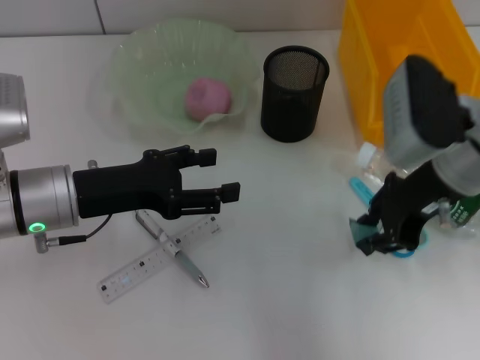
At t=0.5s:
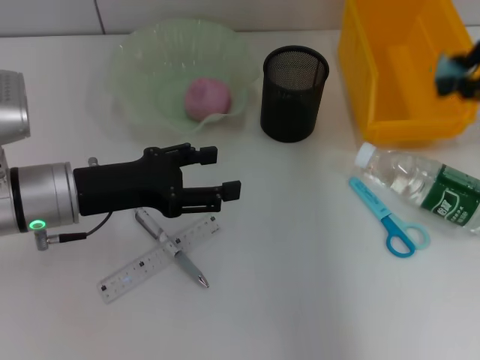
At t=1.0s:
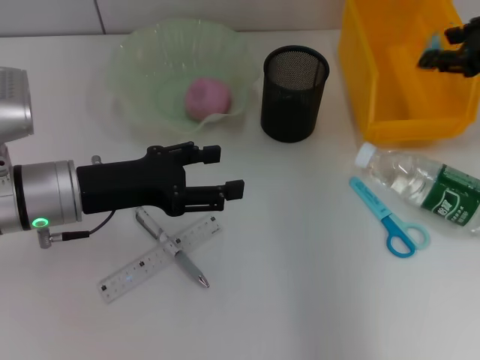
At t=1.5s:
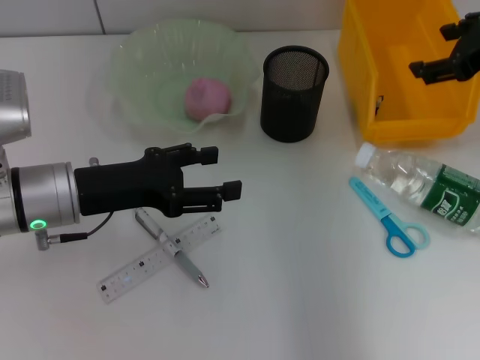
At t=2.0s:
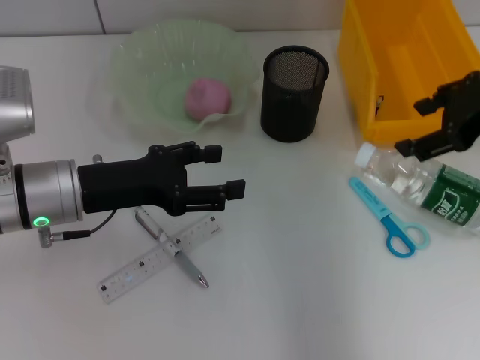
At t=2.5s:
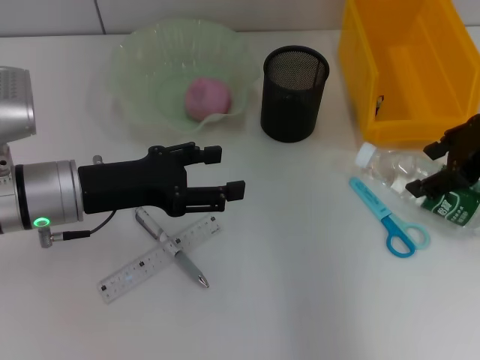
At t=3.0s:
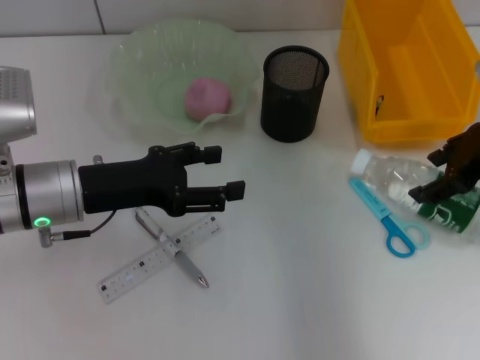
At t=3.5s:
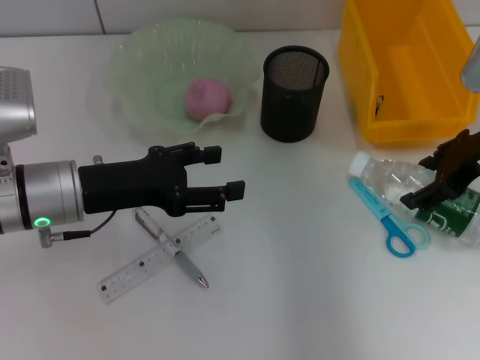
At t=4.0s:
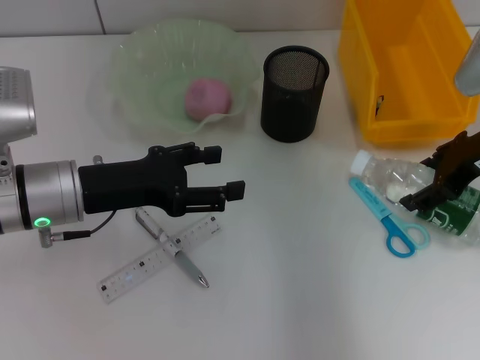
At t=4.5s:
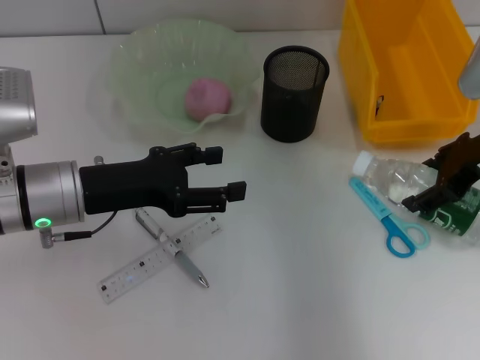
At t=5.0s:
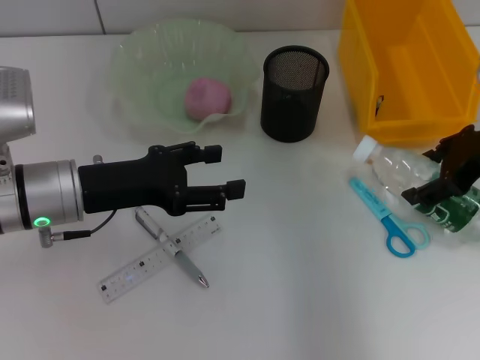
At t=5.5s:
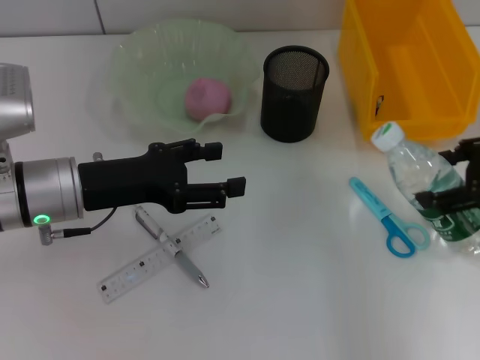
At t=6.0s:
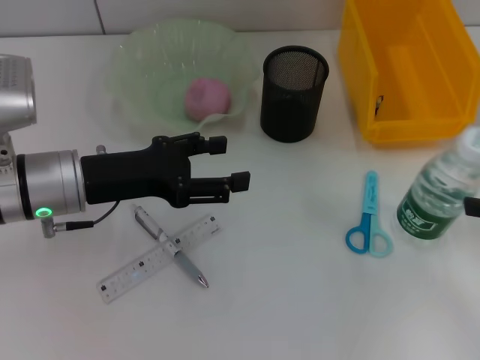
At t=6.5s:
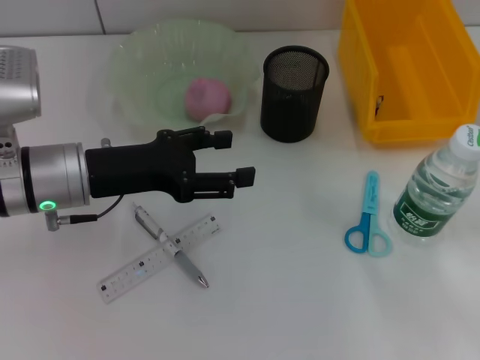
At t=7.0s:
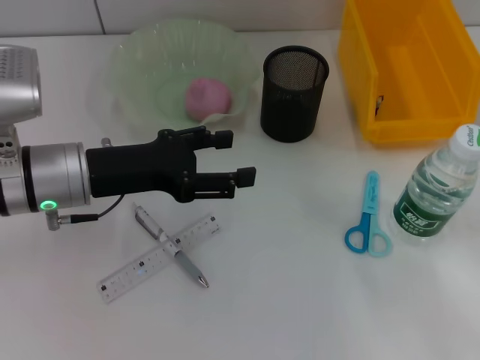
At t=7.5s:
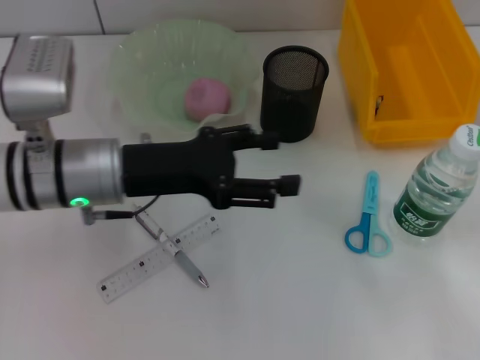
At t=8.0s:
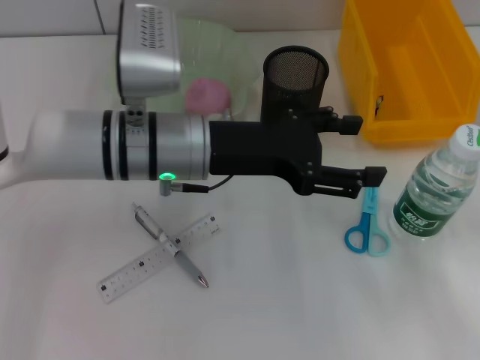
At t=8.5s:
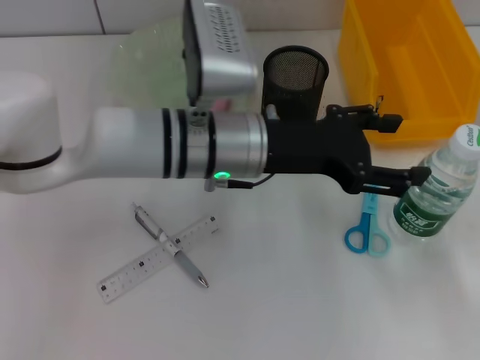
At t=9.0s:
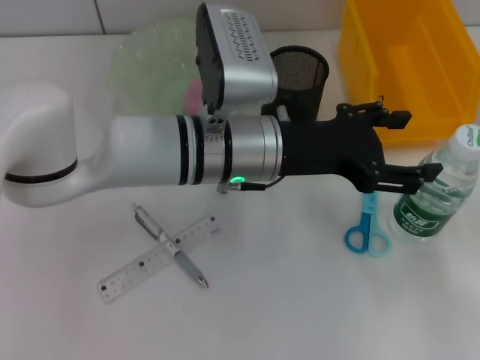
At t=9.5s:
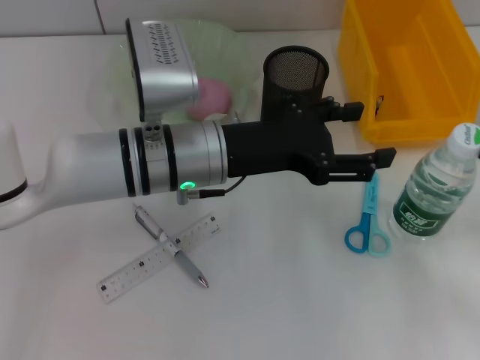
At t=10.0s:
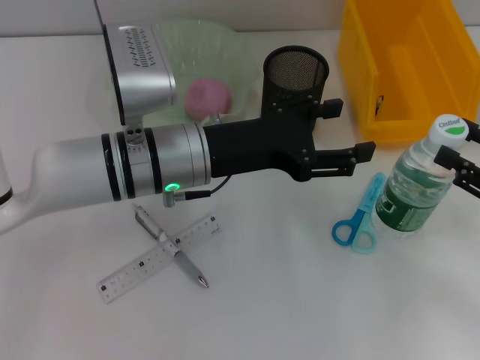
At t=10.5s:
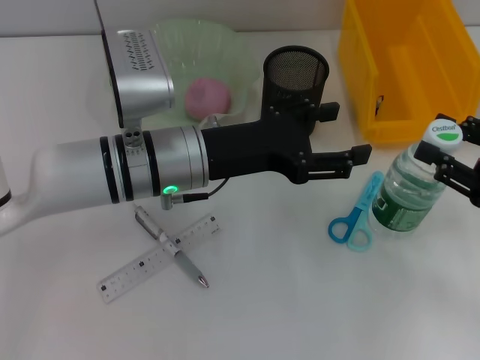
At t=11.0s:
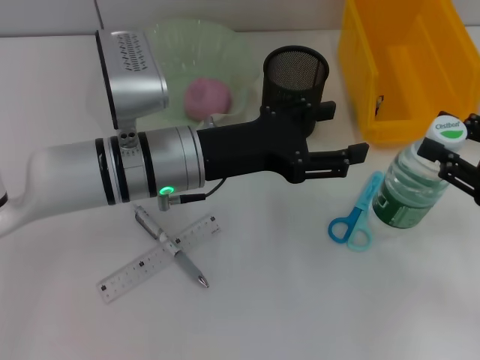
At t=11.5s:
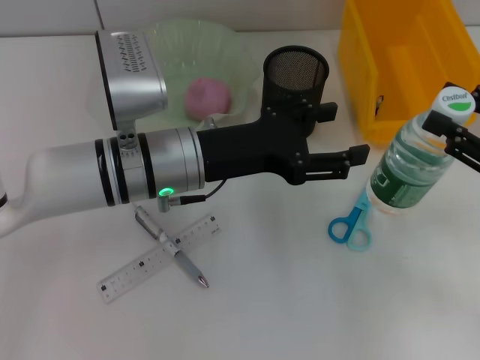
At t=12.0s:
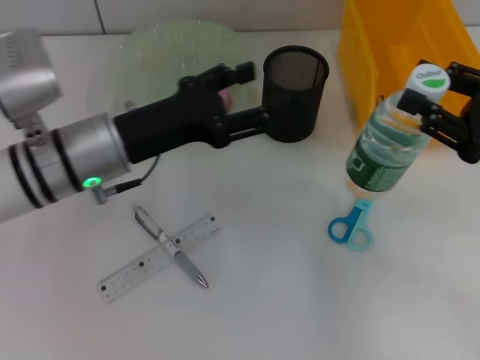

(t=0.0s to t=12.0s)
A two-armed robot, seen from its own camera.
Step, t=0.0s - t=1.0s: Place the plastic into the trash can with the right hand.
Step, t=1.5s - t=4.5s: Grab the water bottle with the right hand.
t=0.0s - t=2.0s: The right gripper moves to the right and upward, about 10 cm, and opens up.
t=2.0s - t=4.0s: The right gripper moves downward, about 5 cm.
t=4.0s - t=6.0s: The right gripper moves backward and to the right, roughly 15 cm.
t=6.0s - t=8.0s: The left gripper moves to the right, approximately 10 cm, while the right gripper shifts approximately 10 cm backward and downward, and closes, then reopens.
t=8.0s - t=10.0s: The right gripper shifts approximately 10 cm forward.
t=10.0s - t=12.0s: The left gripper goes roughly 5 cm to the left. Meanwhile the right gripper ends up about 5 cm from where it was.

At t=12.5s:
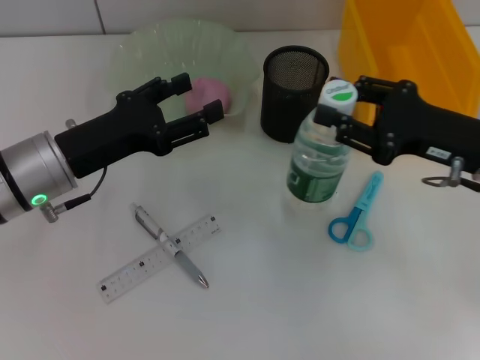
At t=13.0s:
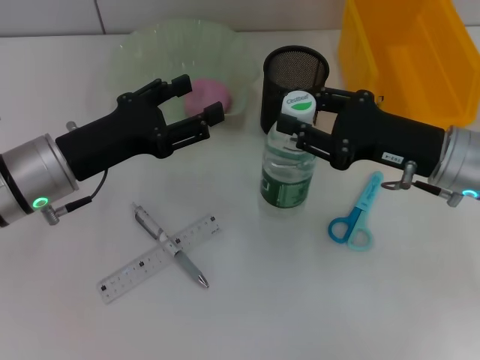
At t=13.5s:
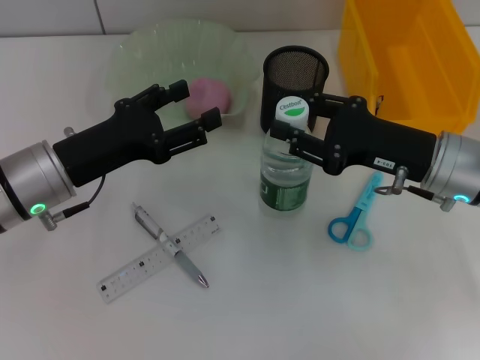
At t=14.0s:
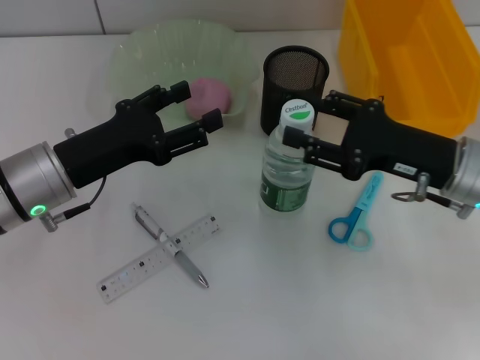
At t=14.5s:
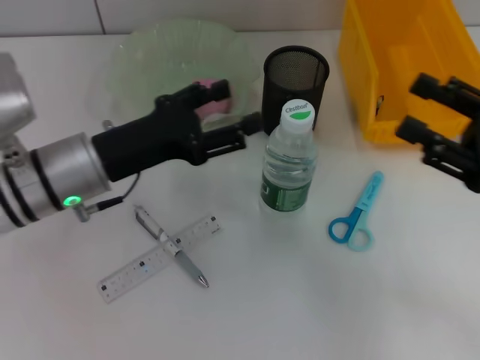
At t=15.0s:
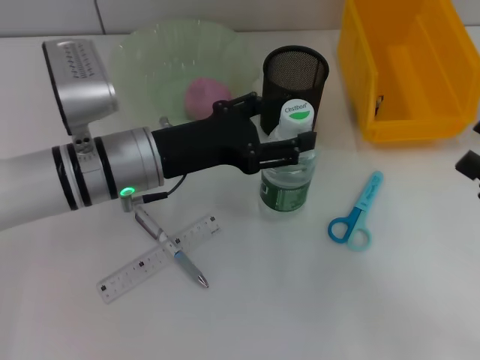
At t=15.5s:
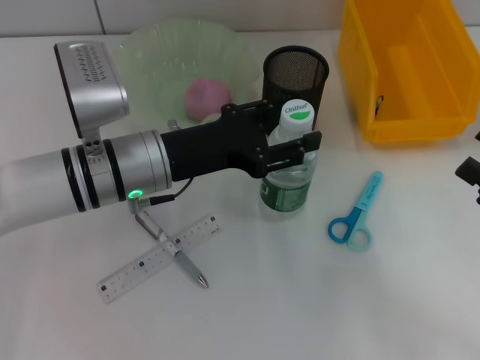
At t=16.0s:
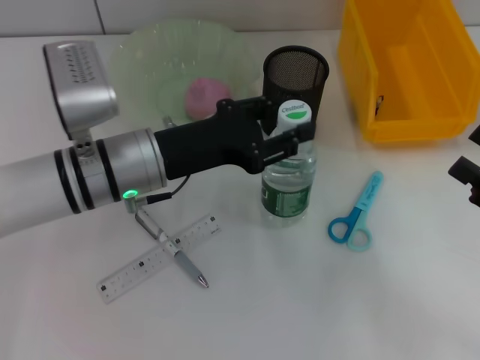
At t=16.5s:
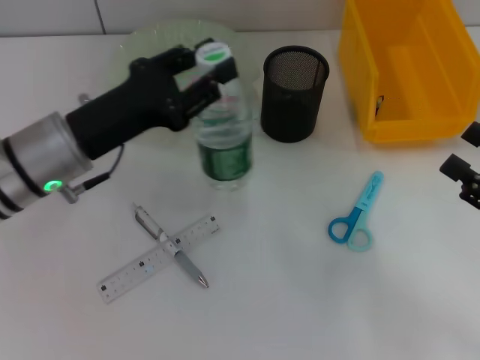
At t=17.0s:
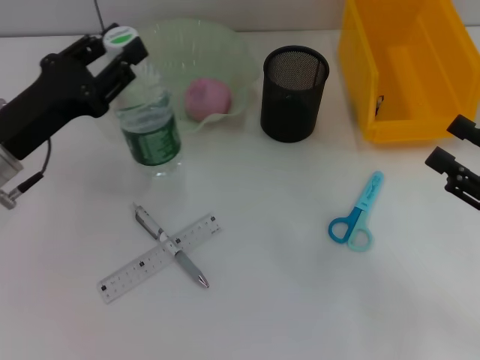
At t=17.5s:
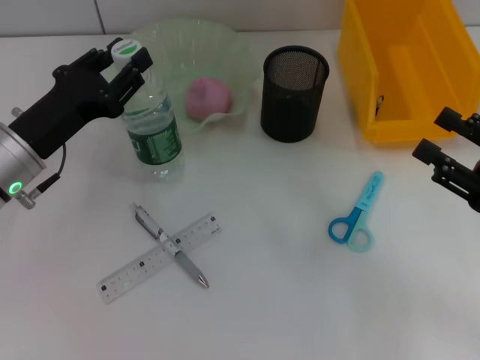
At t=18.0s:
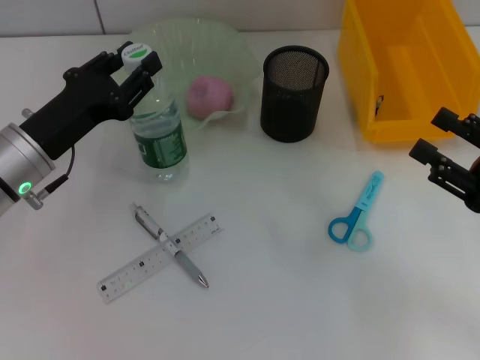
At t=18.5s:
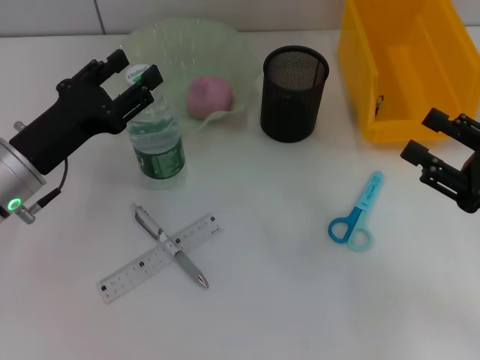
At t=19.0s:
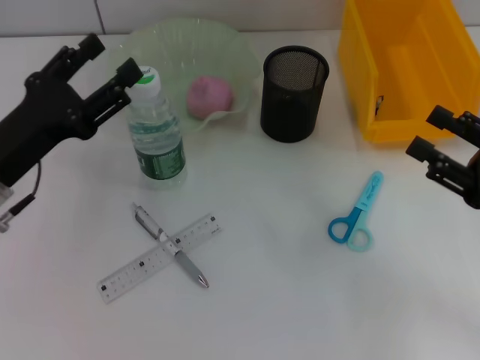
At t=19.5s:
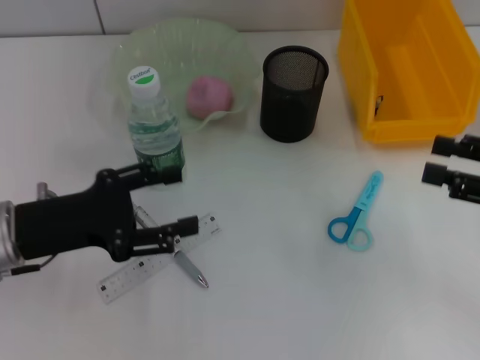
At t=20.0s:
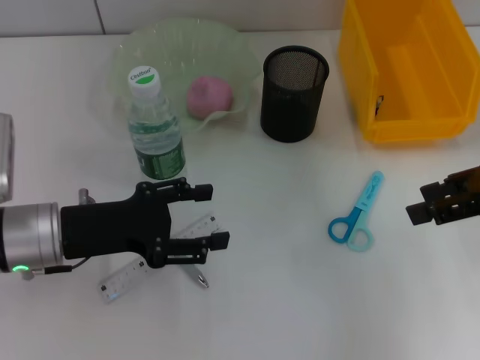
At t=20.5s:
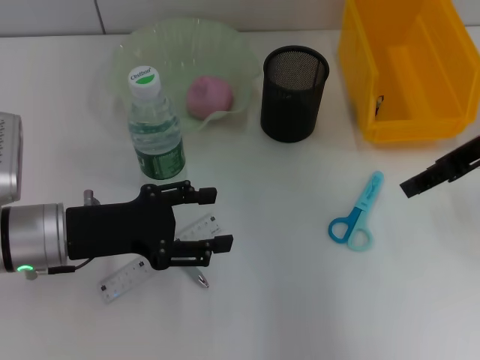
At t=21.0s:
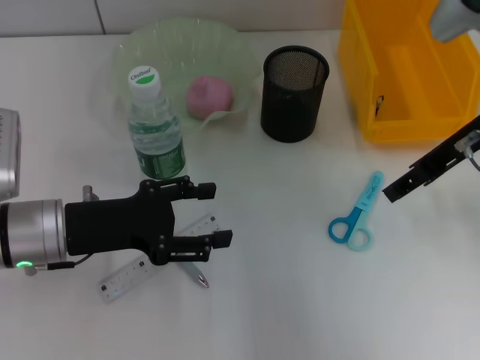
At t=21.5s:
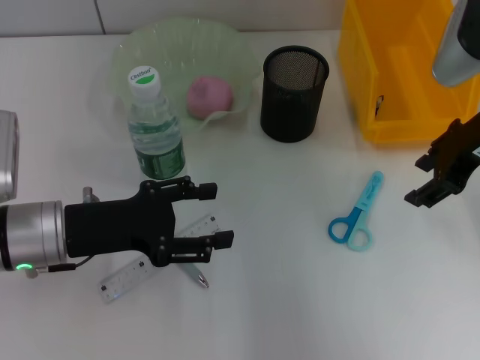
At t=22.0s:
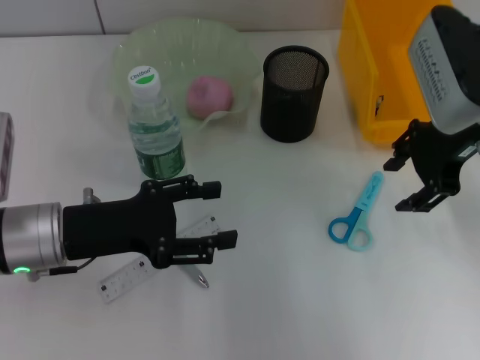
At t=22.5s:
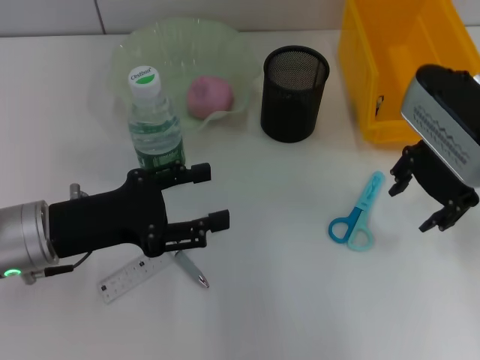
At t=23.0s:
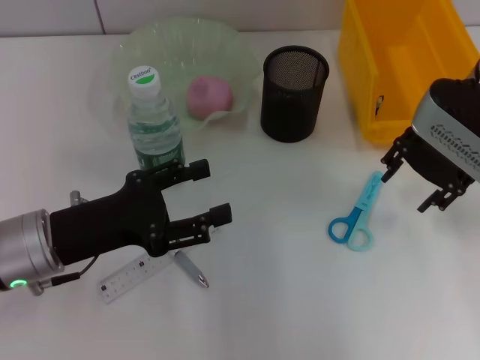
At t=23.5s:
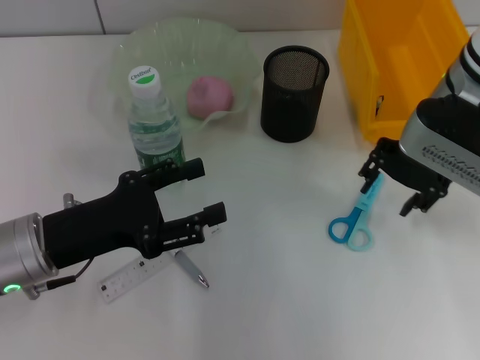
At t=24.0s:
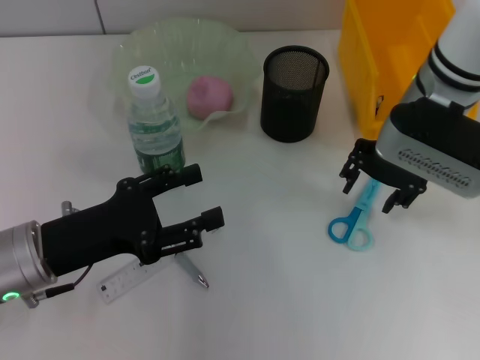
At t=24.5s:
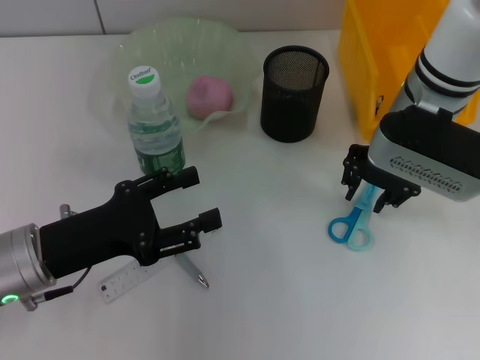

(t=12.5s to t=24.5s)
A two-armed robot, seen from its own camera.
Step, t=14.5s - t=15.5s: Grab the water bottle with the left hand.
Step, t=16.0s - t=18.5s: Place the water bottle on the table with the left hand.
t=12.5s - t=14.5s: The right gripper travels backward by about 5 cm.
t=14.5s - t=16.5s: The right gripper ends up approximately 5 cm from where it was; the left gripper closes its fingers.
t=16.5s - t=18.5s: The left gripper ends up roughly 5 cm from where it was.
t=18.5s - t=20.5s: The right gripper goes approximately 20 cm upward, forward and to the left.
t=20.5s - t=22.5s: The right gripper shifts some 5 cm to the left.
t=22.5s - t=24.5s: The right gripper is displaced to the left by some 5 cm.

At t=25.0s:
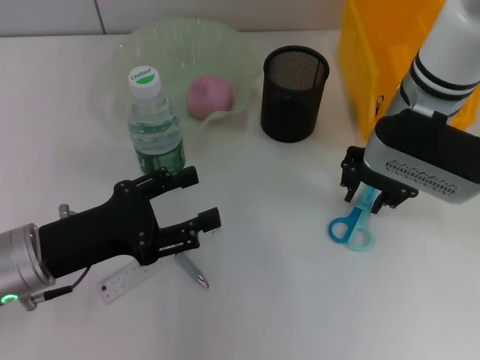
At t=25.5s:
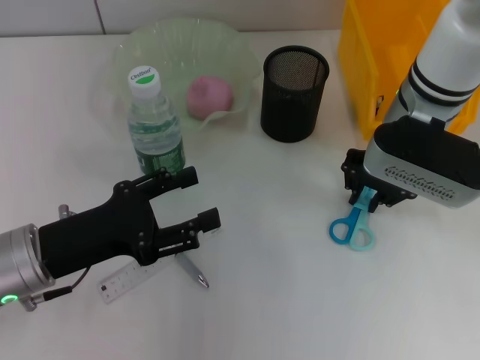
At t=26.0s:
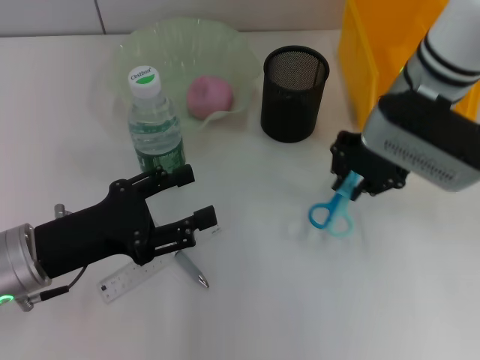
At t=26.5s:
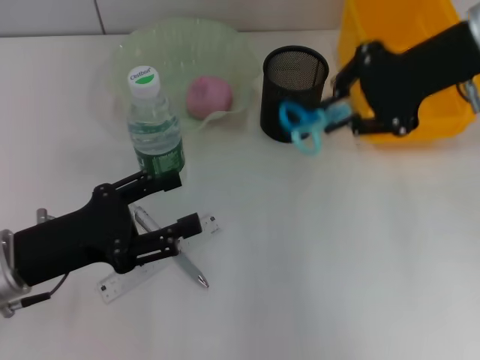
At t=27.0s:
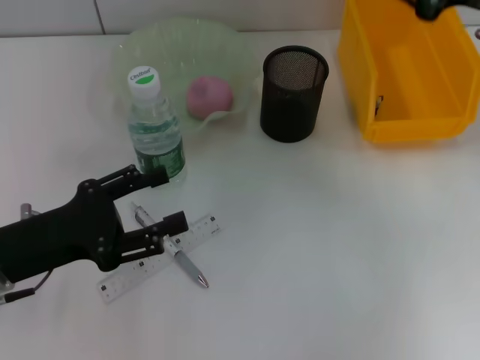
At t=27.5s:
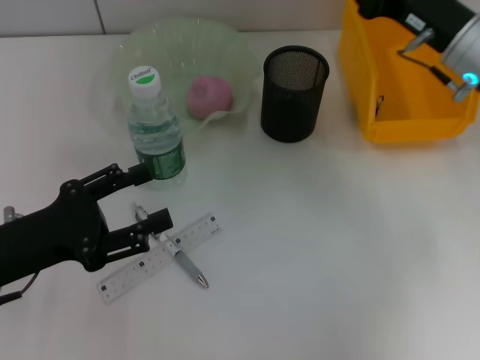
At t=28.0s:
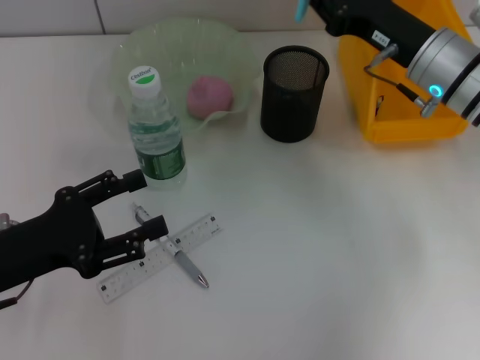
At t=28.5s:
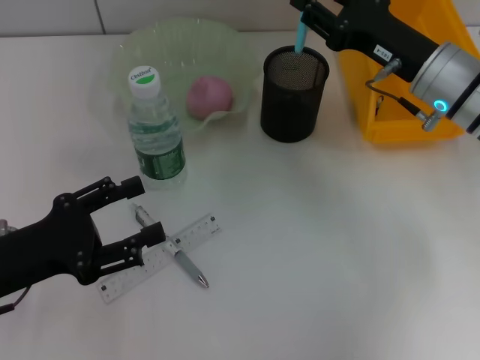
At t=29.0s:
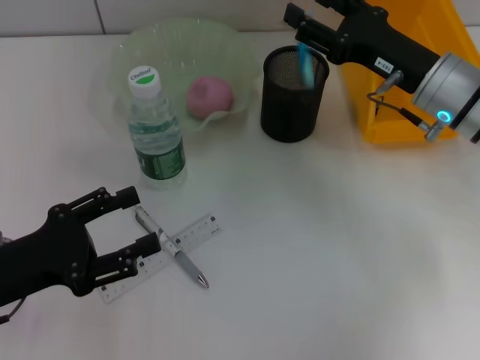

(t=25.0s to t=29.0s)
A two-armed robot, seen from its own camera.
t=25.0s - t=27.0s: The right gripper goes about 15 cm to the right and upward.
t=27.0s - t=29.0s: The right gripper shifts about 10 cm downward and to the left, and opens up.
